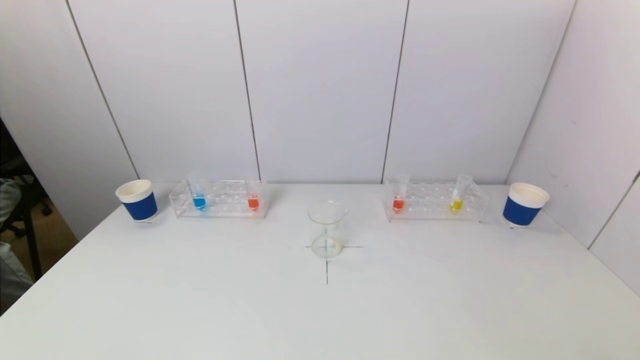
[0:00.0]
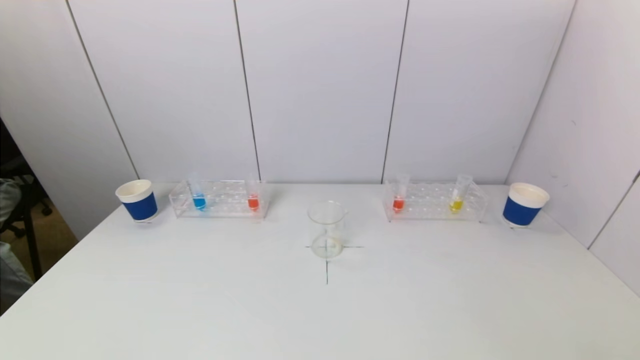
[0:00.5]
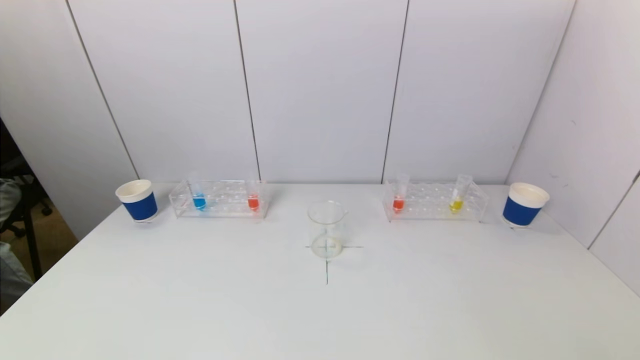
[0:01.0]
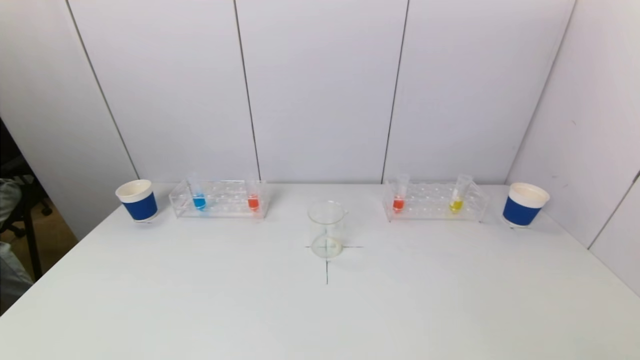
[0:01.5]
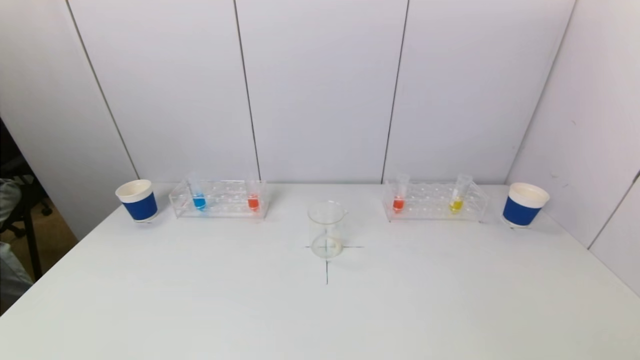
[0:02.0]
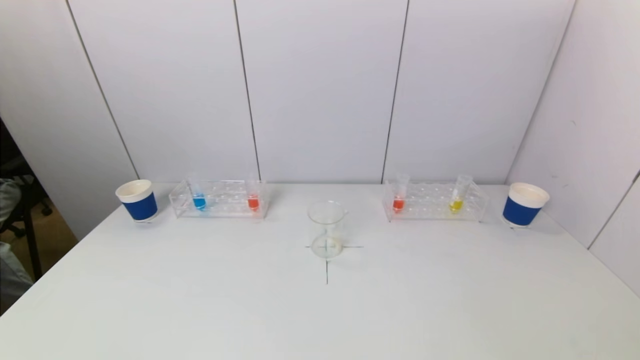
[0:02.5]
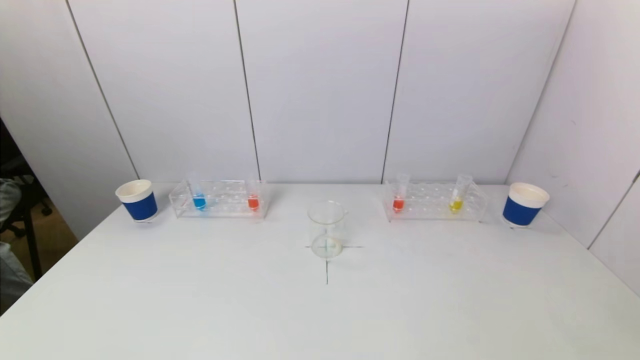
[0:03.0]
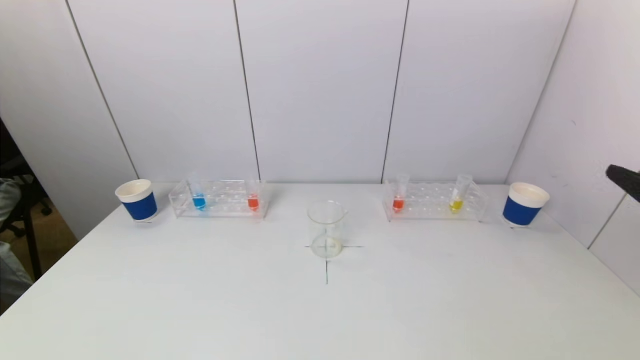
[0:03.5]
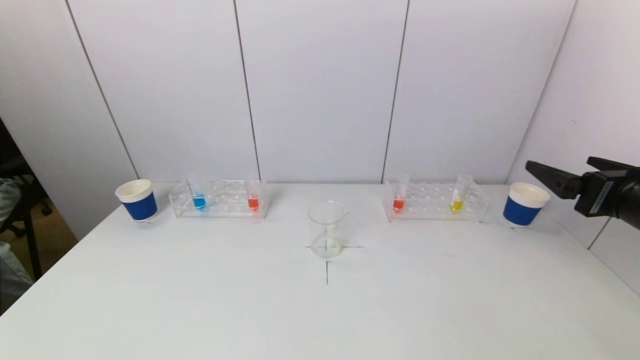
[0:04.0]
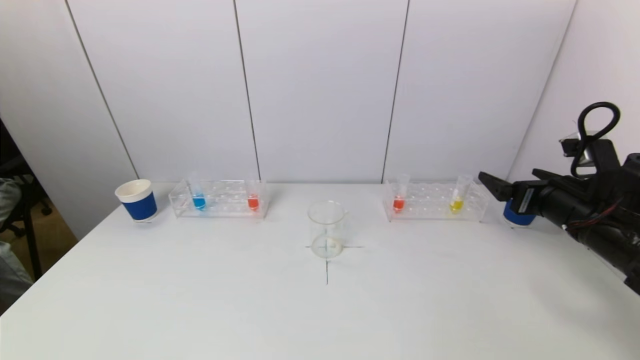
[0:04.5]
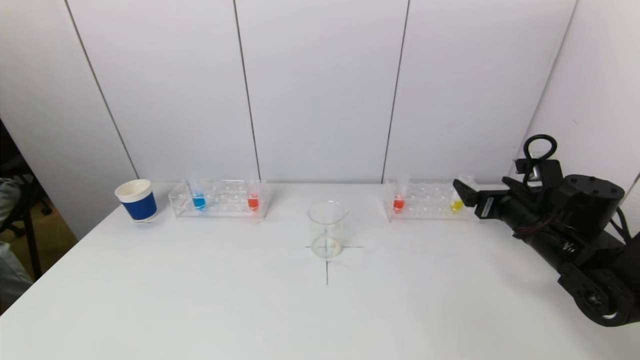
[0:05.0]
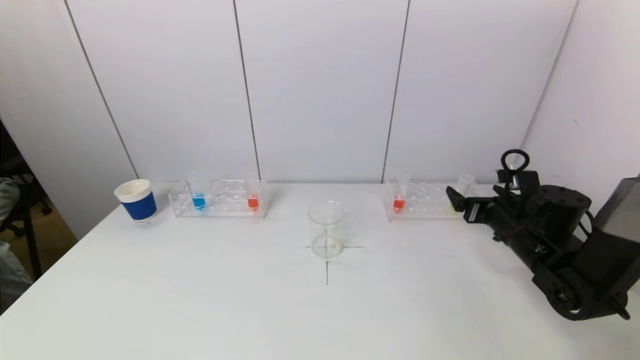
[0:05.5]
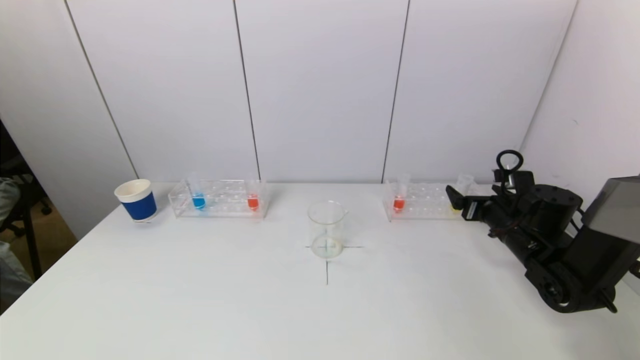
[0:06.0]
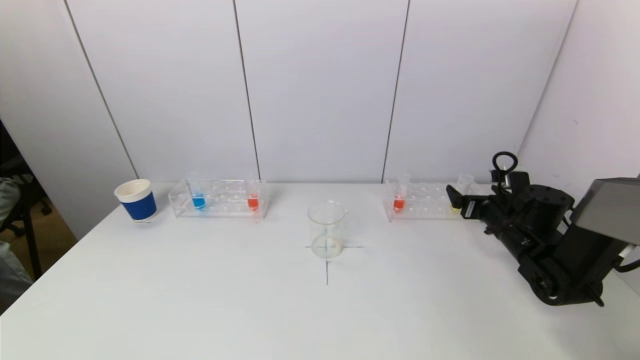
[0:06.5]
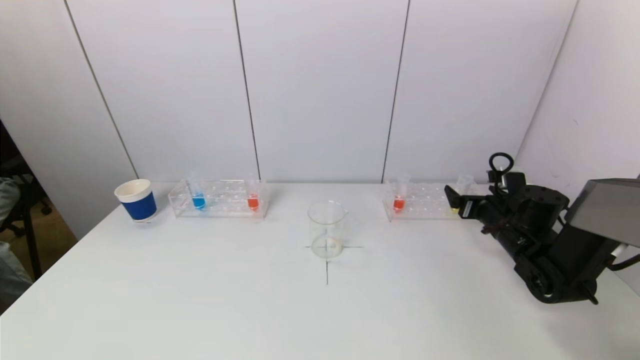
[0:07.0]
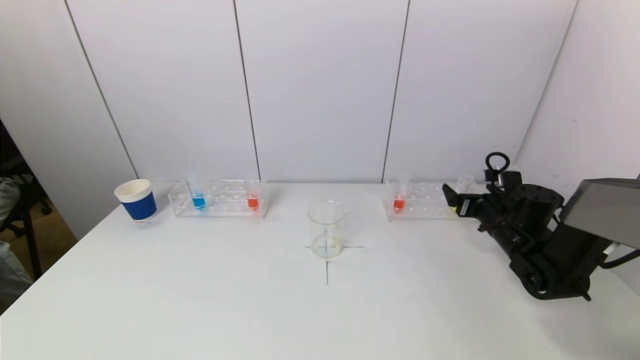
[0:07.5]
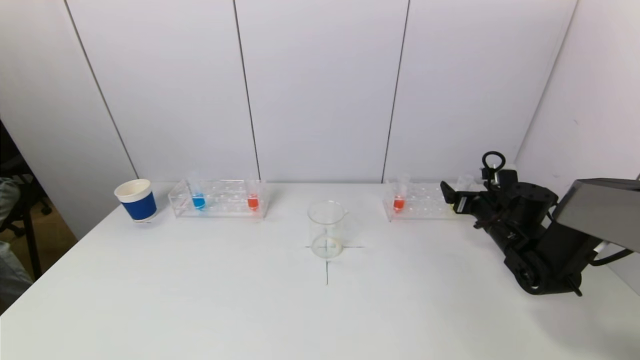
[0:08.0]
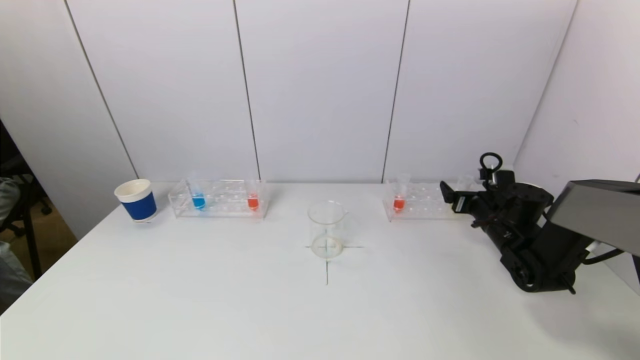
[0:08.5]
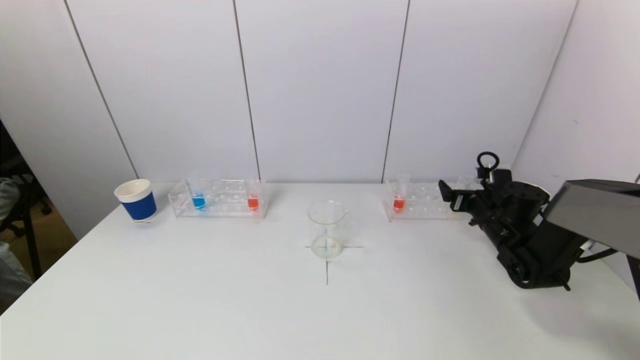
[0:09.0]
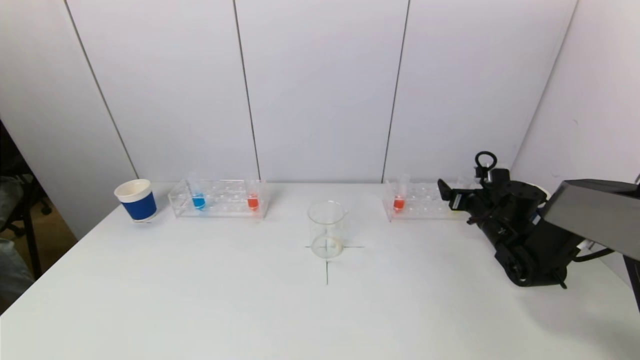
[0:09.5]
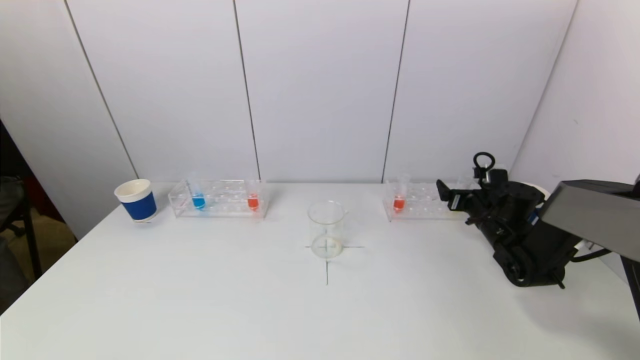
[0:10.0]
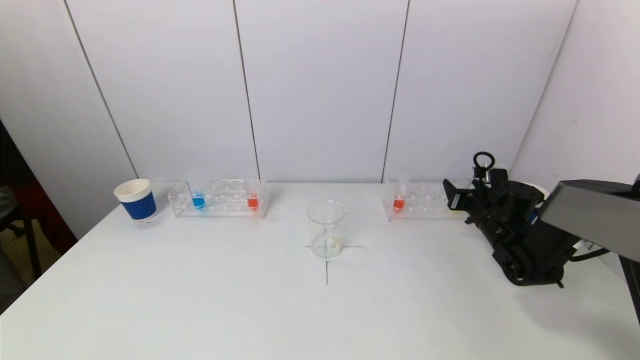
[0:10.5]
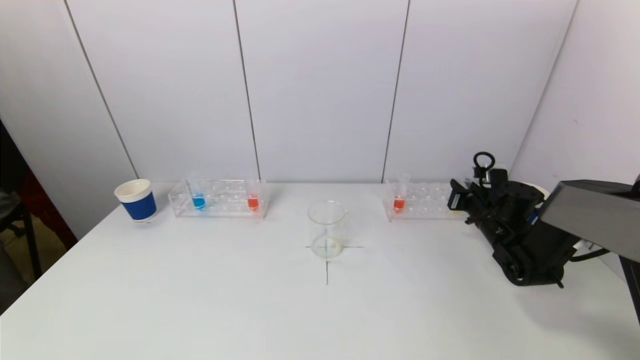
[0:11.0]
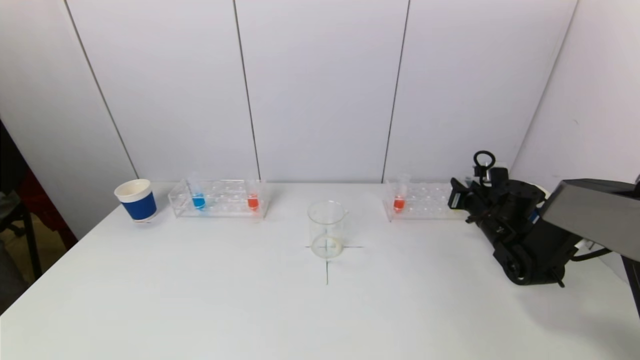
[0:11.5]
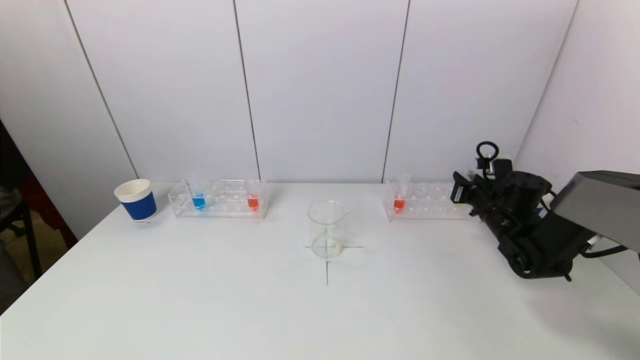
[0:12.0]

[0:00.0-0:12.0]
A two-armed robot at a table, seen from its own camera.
Task of the whole recording: pick up a test tube with pigment on left test tube rack and a test tube with pigment on right test tube rack by grippers and pour them into the beaker.
Step, 0:00.0 to 0:11.5: Grasp the yellow reagent with the right gripper.
0:02.0 to 0:04.0: The right gripper goes approximately 25 cm forward and upward.
0:04.0 to 0:06.0: The right gripper heads forward and downward, covering approximately 20 cm.
0:06.0 to 0:08.0: The grippers move only a little.
0:08.0 to 0:10.0: The grippers stay close to where they were, moving slightly.
0:10.0 to 0:12.0: The right gripper closes up.

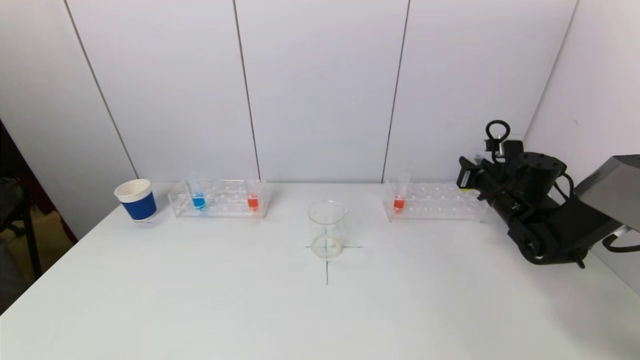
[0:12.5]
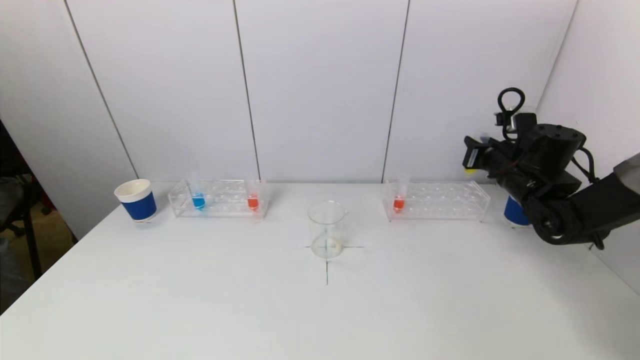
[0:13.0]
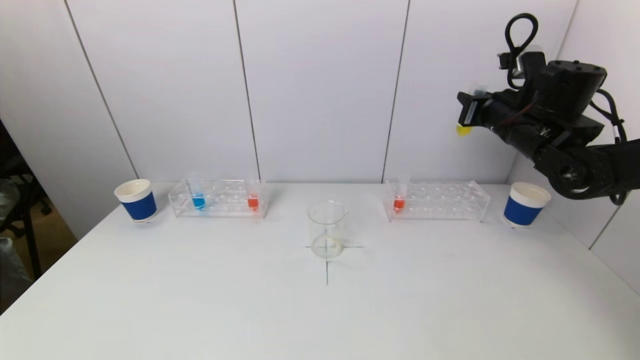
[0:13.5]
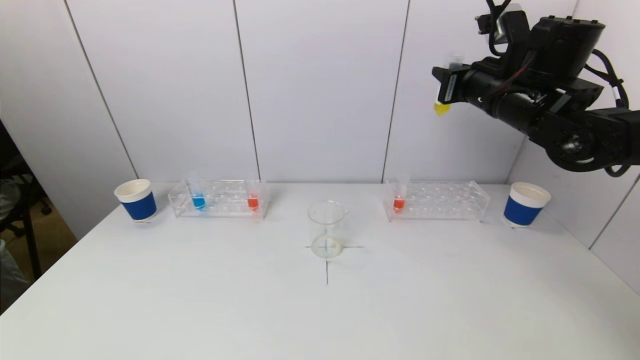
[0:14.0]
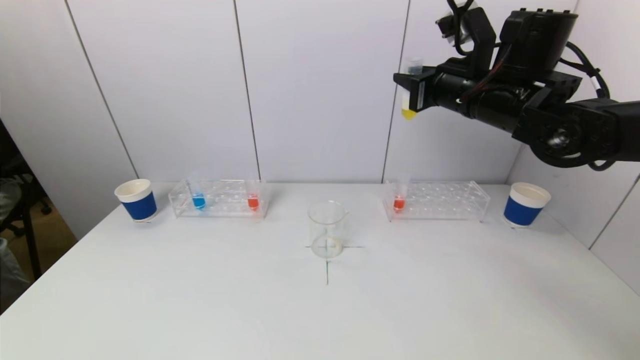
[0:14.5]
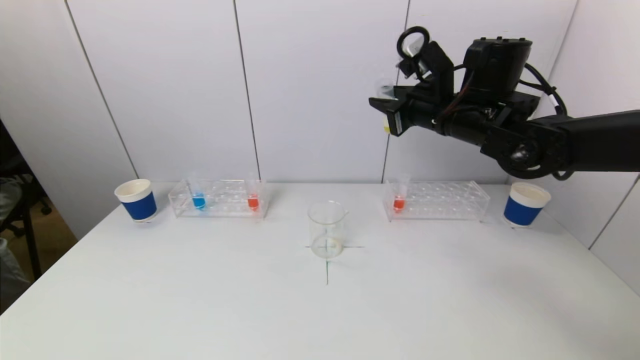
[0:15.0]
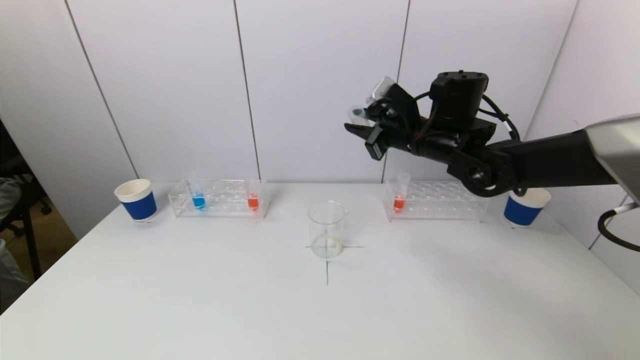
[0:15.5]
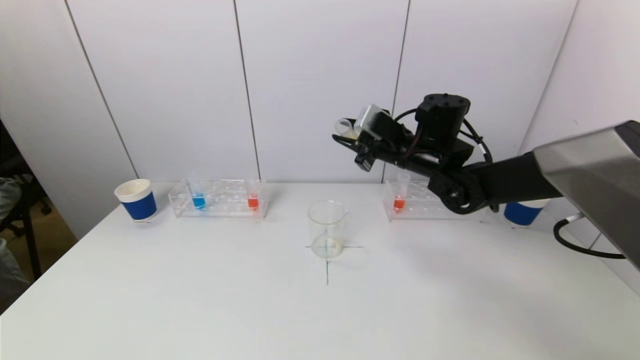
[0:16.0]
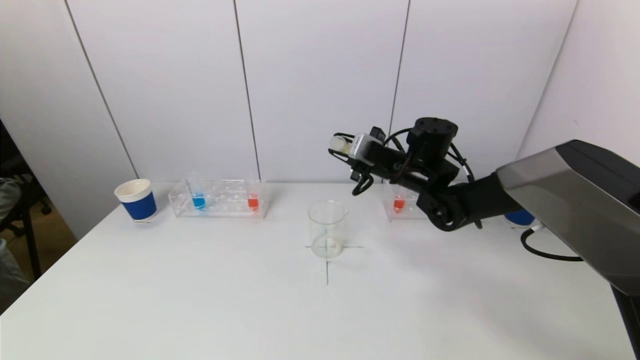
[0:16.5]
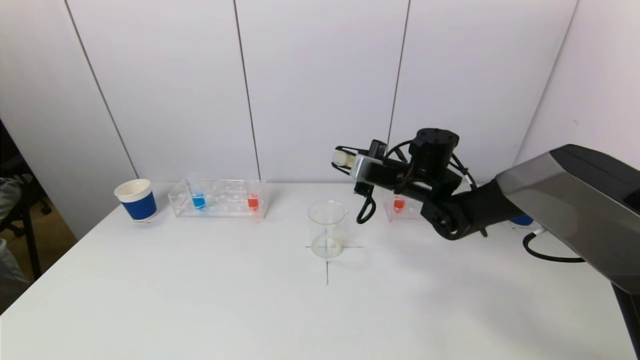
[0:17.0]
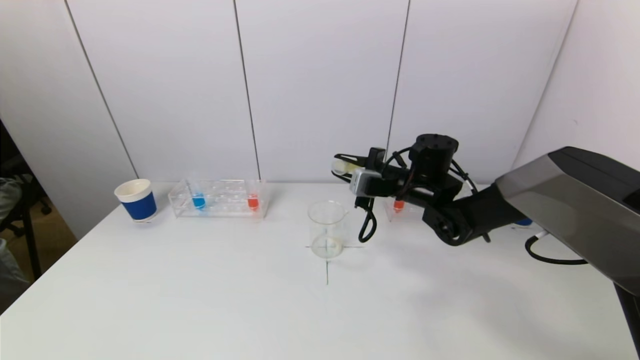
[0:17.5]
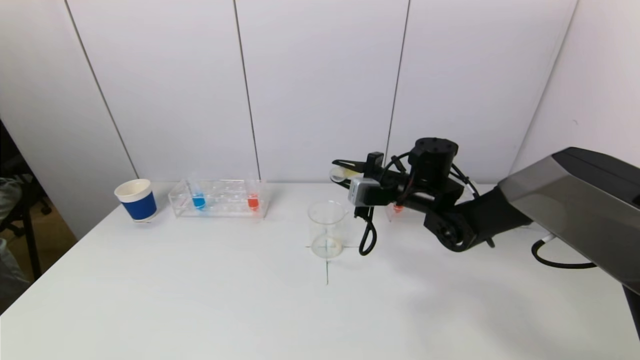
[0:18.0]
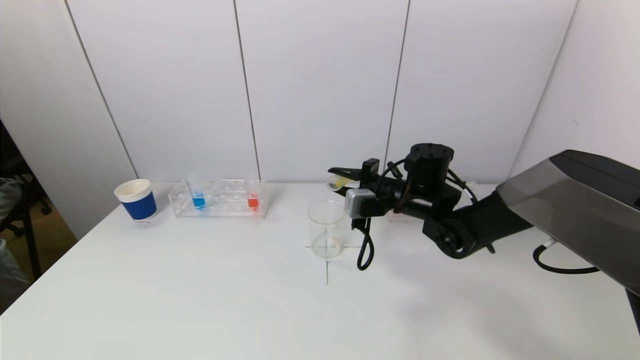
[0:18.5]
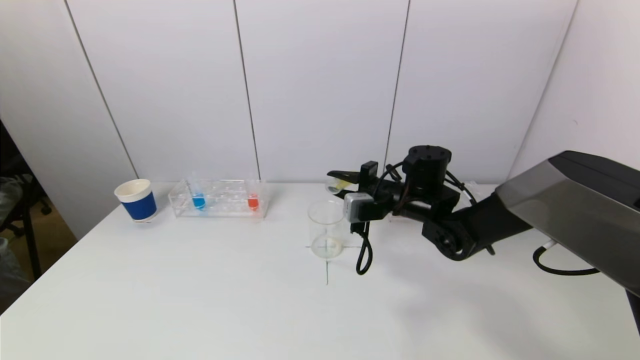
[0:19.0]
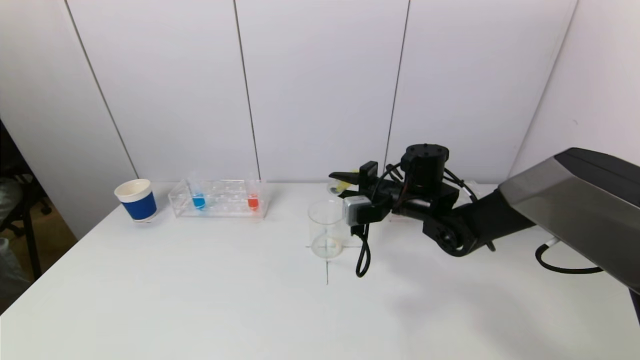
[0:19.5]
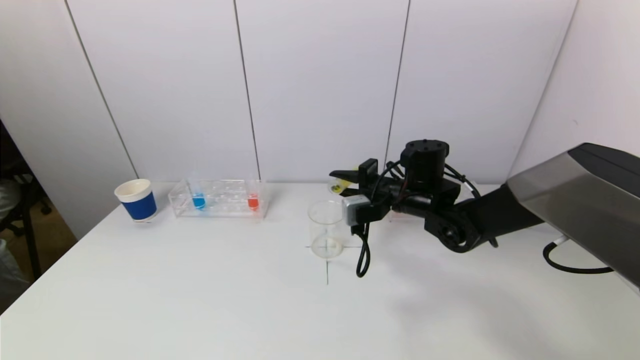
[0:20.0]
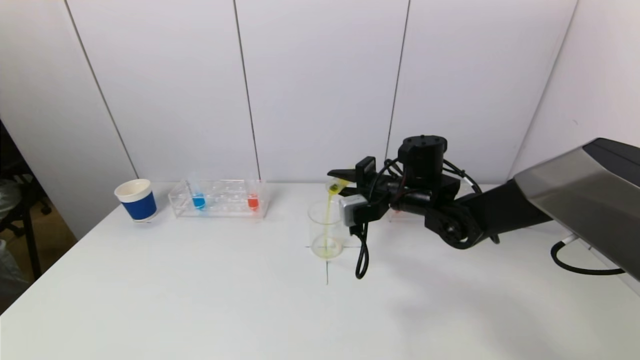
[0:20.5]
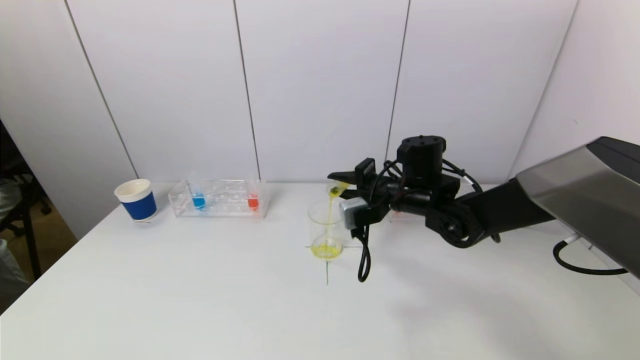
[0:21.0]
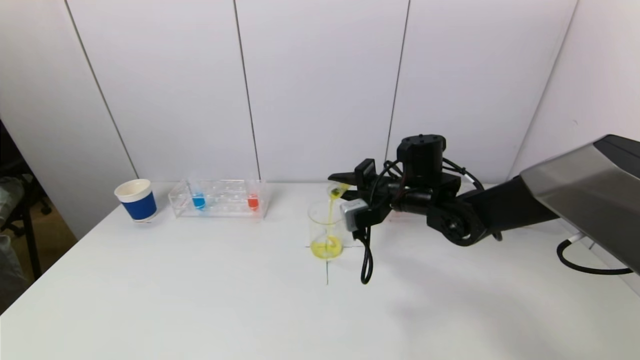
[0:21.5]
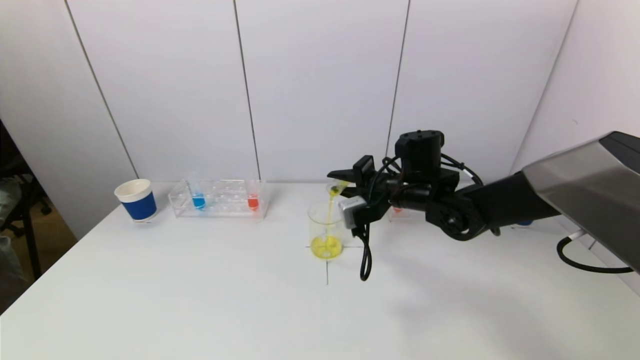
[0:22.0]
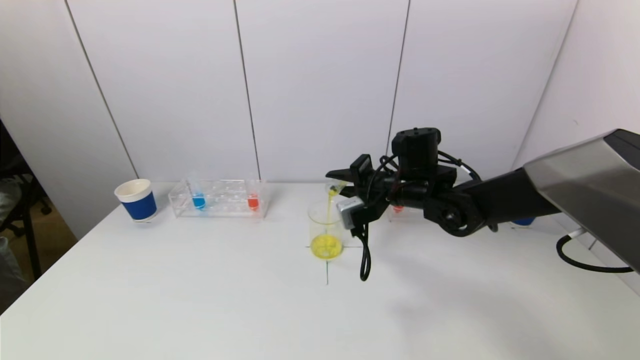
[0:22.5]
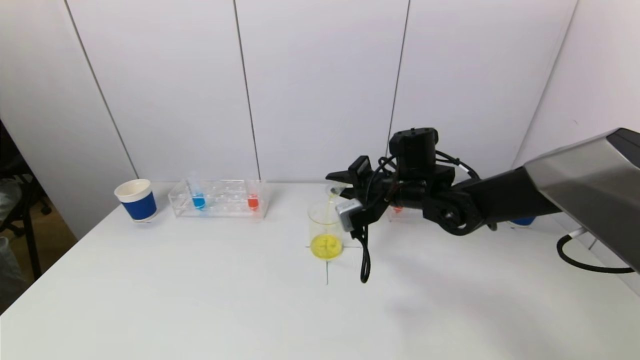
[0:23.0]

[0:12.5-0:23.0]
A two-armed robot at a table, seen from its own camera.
Task of the whole recording: pick up a test tube with pigment on left test tube rack and a test tube with pigment on right test tube rack by grippers and pour them into the beaker.
0:12.5 to 0:14.5: The right gripper shifts some 25 cm upward and to the left.
0:14.5 to 0:16.5: The right gripper shifts roughly 15 cm downward and to the left.
0:16.5 to 0:19.0: The right gripper moves about 5 cm.
0:19.0 to 0:21.0: There are only small adjustments of the grippers.
0:21.0 to 0:23.0: The grippers stay close to where they were, moving slightly.
